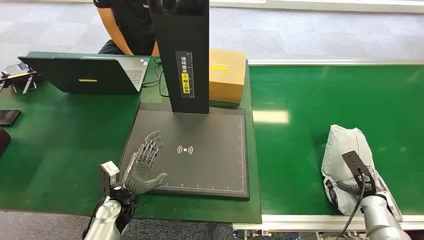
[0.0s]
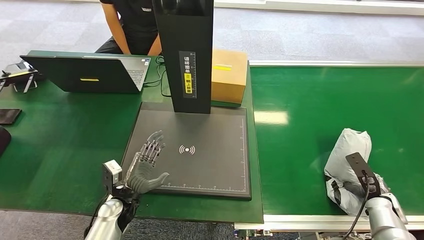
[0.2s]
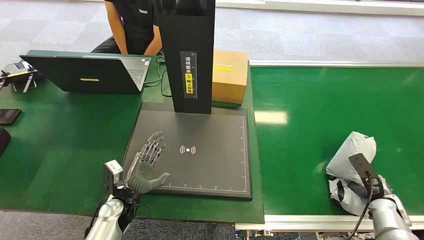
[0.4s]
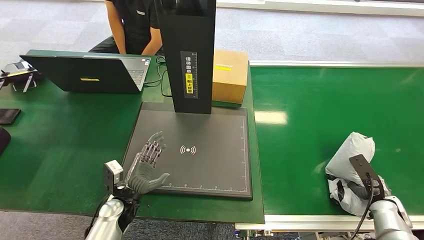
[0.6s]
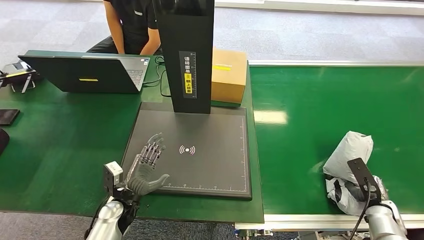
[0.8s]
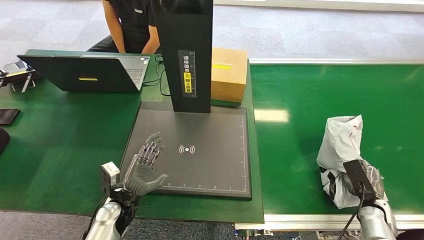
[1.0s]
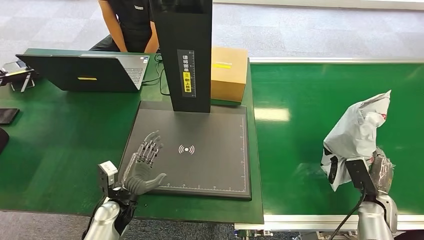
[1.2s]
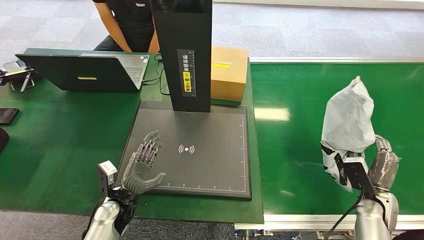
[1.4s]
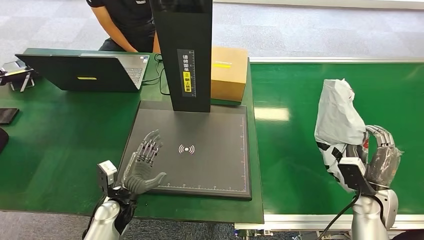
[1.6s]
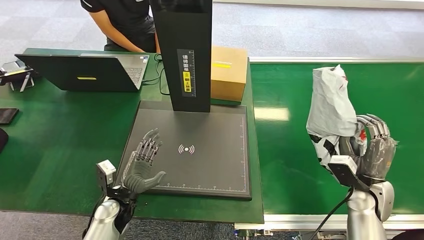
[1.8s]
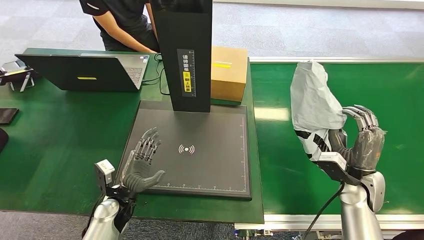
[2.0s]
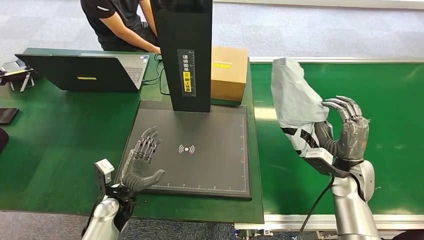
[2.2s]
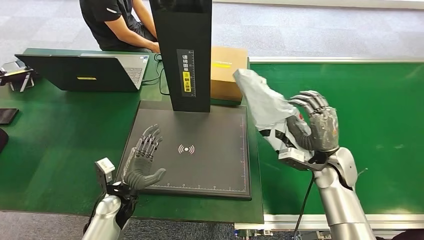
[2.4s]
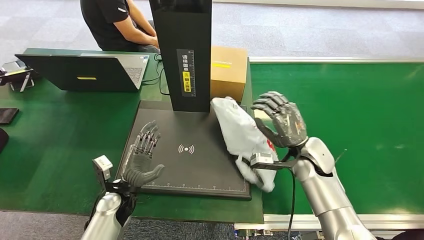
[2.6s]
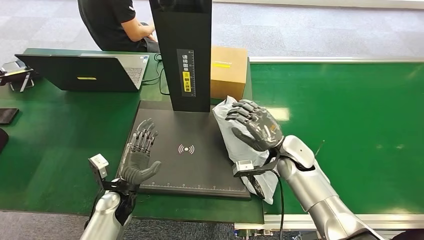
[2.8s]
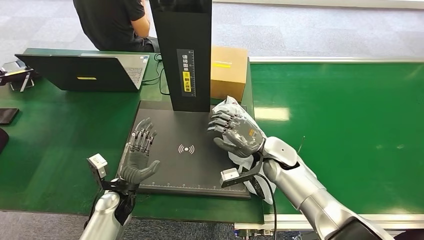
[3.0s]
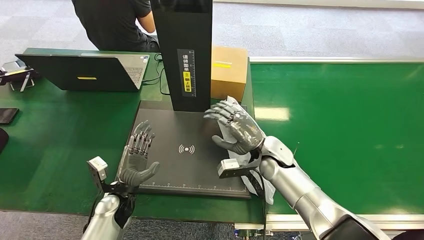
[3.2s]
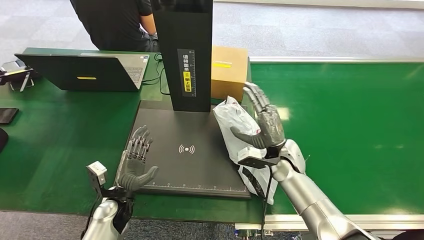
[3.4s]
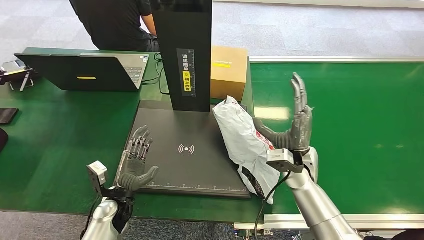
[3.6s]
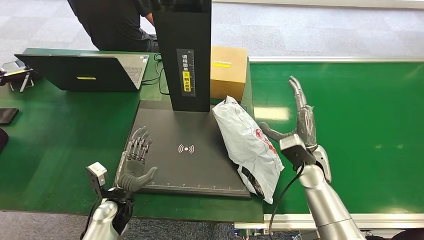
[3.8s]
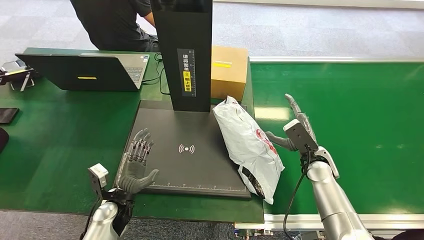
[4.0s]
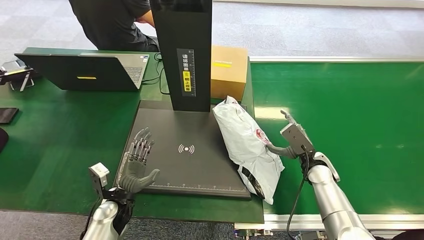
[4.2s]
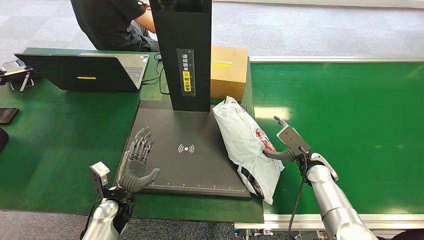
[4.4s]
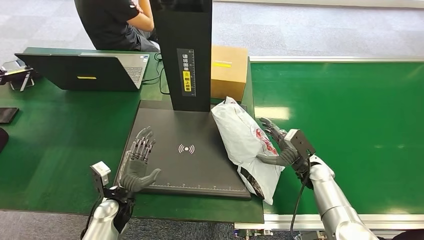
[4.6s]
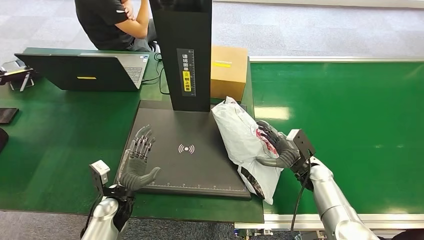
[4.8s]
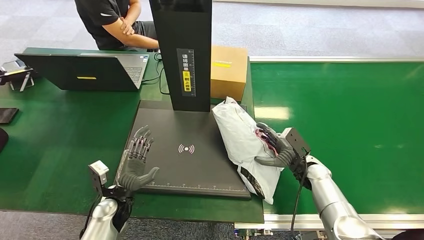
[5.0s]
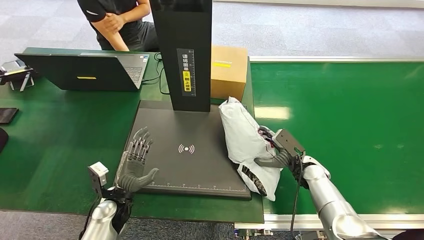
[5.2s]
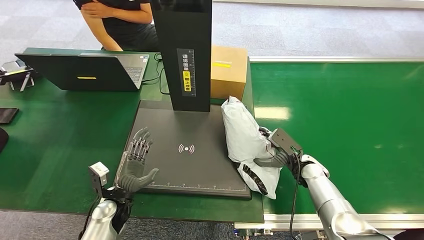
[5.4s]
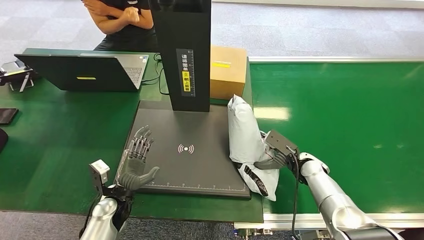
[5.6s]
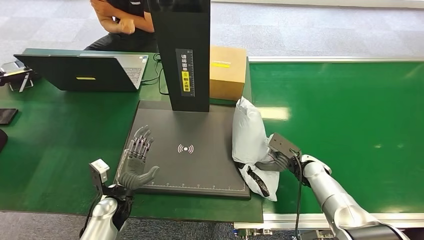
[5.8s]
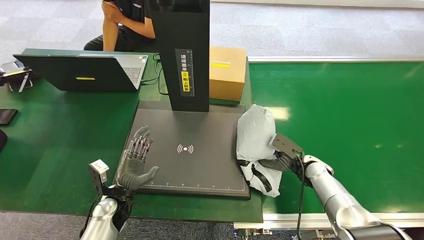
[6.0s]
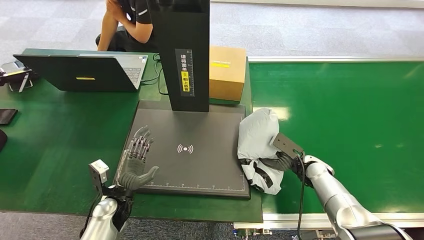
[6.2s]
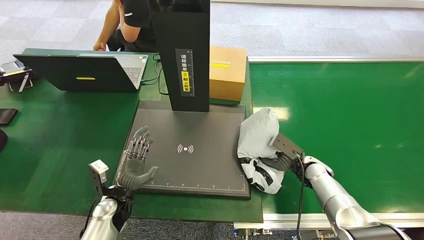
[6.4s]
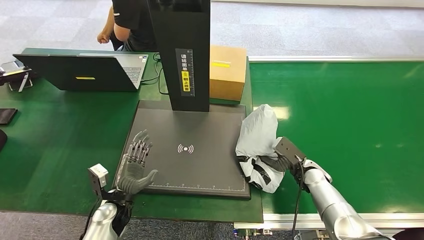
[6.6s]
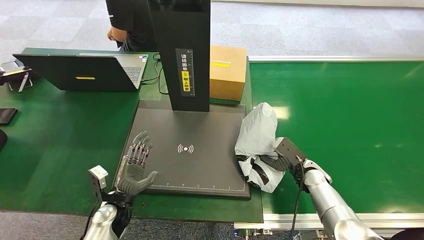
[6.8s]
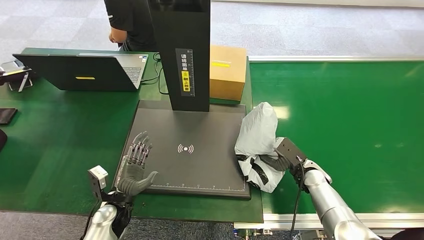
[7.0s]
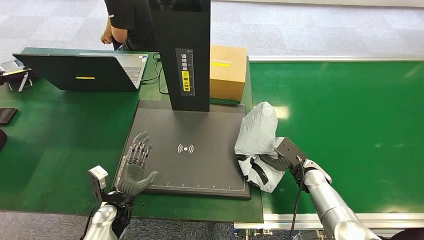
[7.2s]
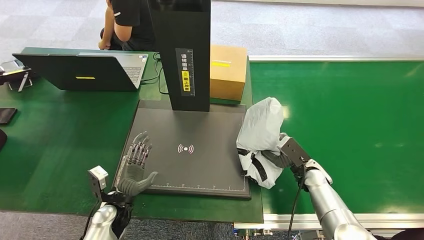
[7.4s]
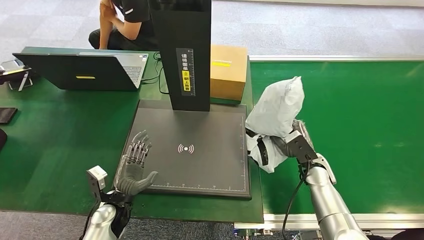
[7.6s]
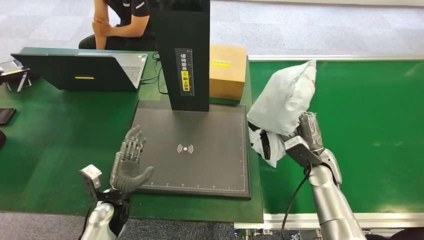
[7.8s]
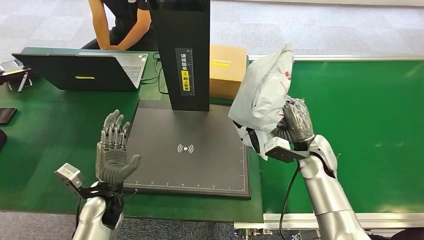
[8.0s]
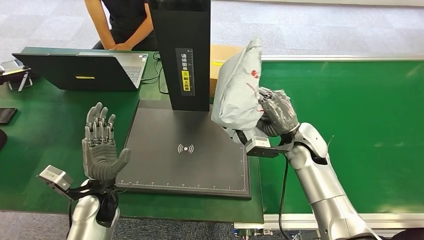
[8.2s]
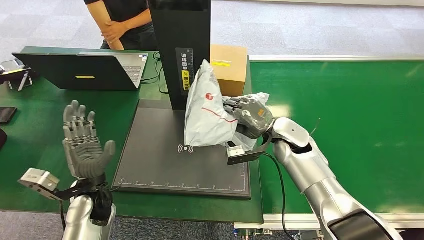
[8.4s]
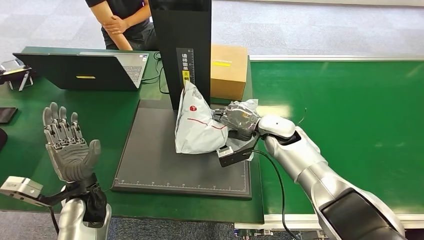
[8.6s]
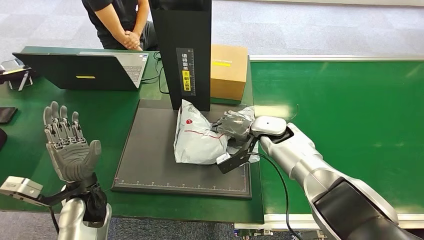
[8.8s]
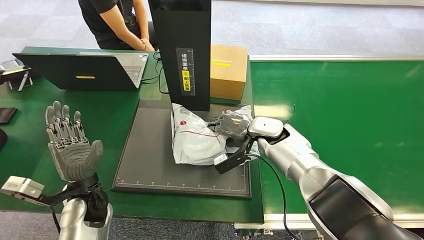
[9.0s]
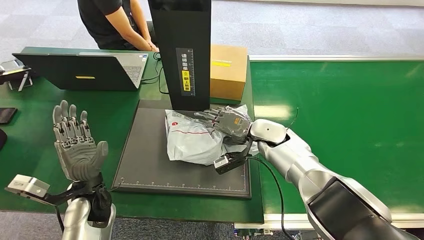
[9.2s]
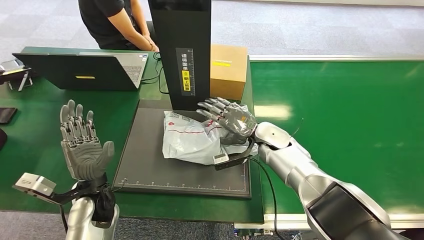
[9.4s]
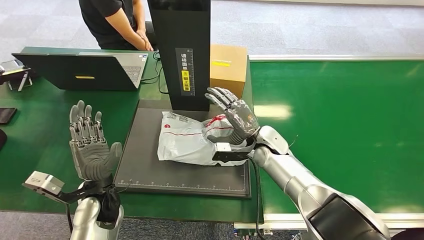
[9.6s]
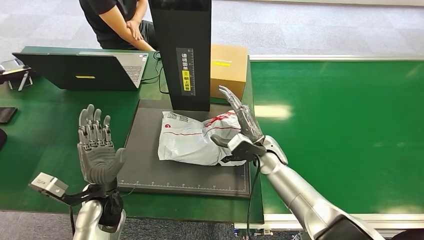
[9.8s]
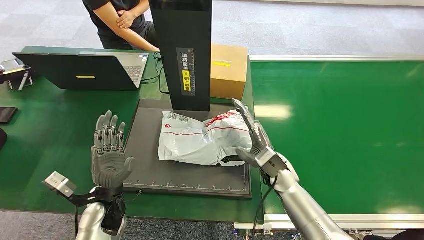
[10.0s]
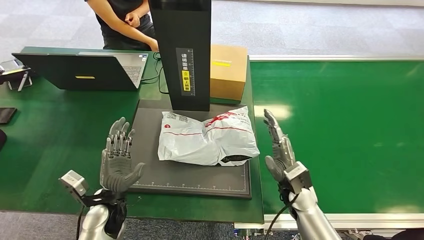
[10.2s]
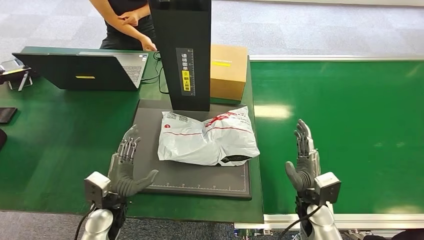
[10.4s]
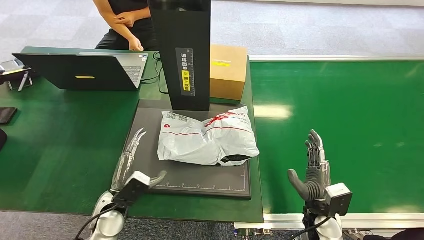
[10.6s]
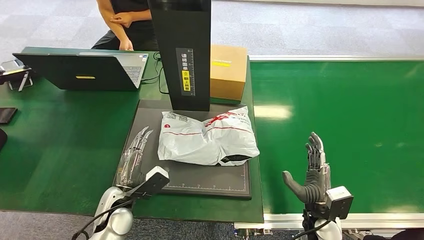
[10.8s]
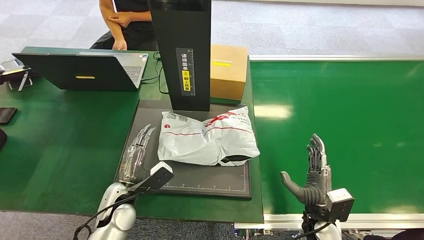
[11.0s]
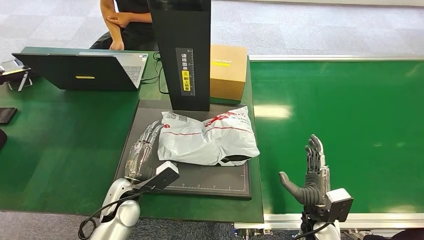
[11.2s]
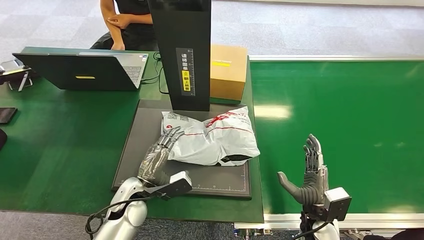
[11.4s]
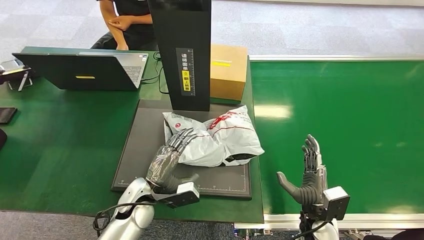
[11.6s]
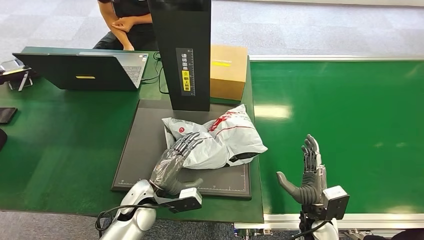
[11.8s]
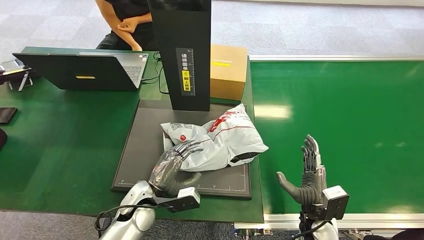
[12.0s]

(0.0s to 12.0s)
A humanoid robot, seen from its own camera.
Task of the whole recording: Weigh the package on the weighing device and place it in the left basket.
Step, 0.0s - 1.6s: Pick up the package from the conveyor belt.
Step, 4.2s - 8.0s: Pick up the package from the conveyor belt.
Step, 8.2s - 9.8s: Place the package onto the inbound machine.
3.0s - 4.4s: The right hand goes roughly 15 cm to the right and downward.
10.4s - 12.0s: The left hand moves to the right, about 10 cm.

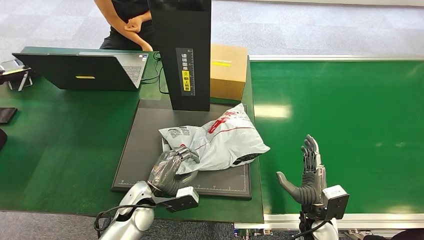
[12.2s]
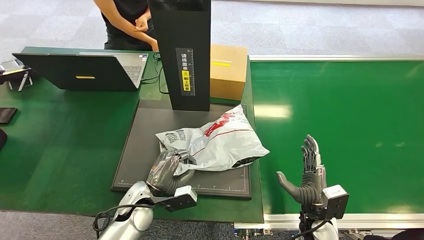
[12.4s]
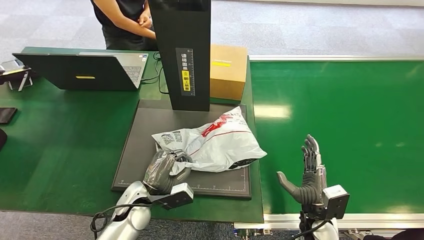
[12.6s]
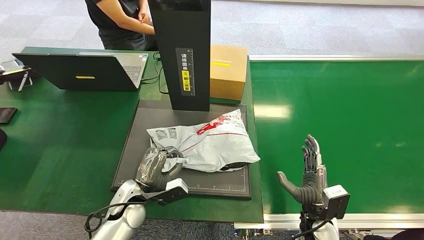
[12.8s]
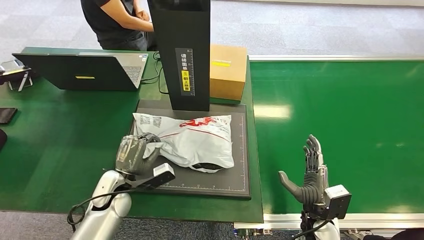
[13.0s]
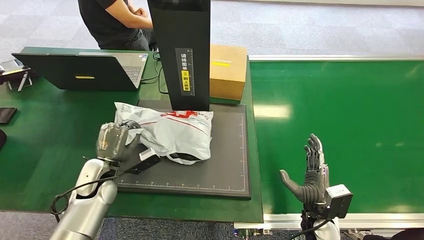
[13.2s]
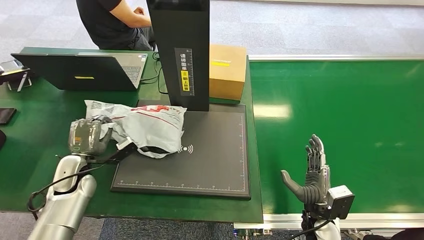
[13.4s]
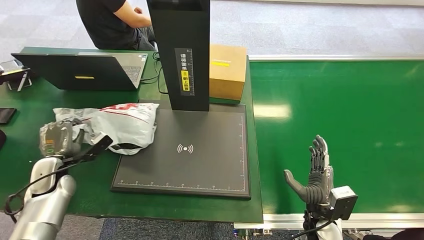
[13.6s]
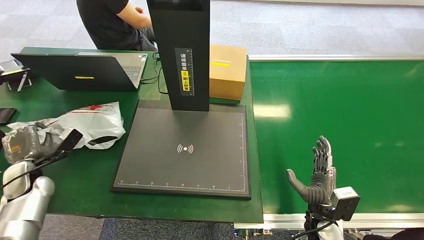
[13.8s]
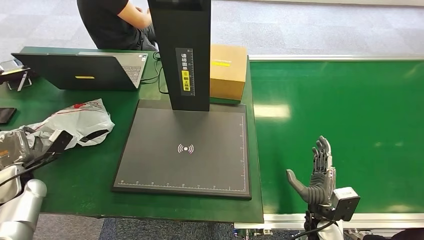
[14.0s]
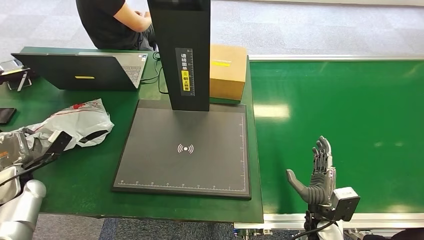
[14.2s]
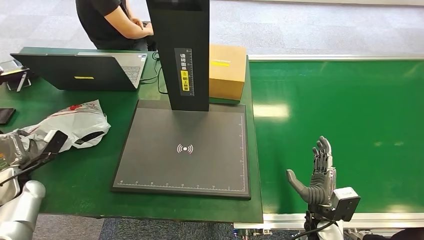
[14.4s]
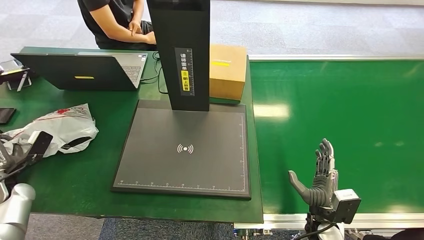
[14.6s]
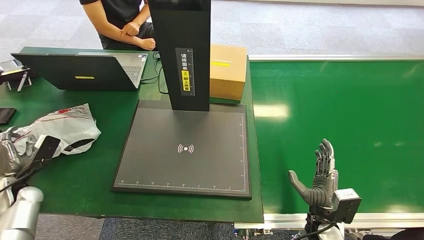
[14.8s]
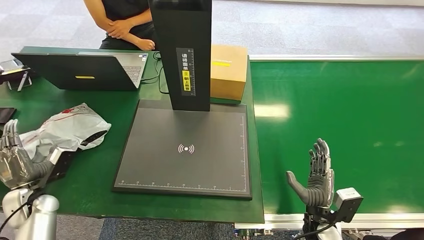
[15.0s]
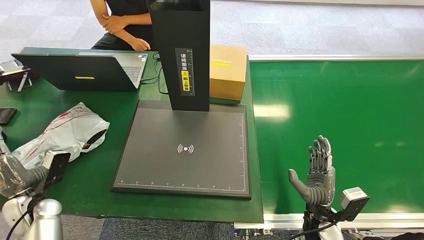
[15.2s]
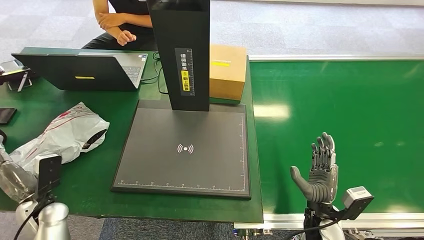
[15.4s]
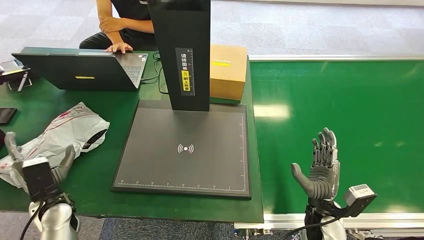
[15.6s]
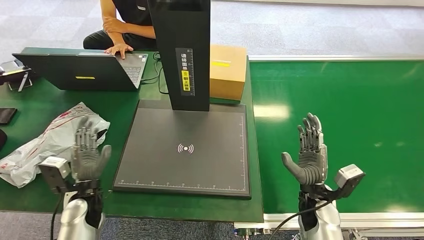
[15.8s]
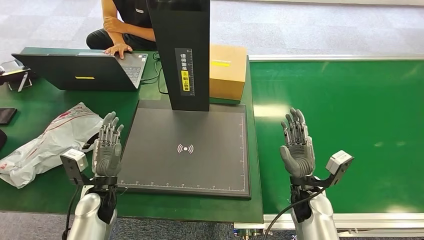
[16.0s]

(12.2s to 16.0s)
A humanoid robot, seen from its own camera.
Task of the whole recording: Weigh the package on the weighing device and place it in the left basket.
Step, 13.6s - 16.0s: Place the package into the parcel locker.
14.8s - 16.0s: The left hand shifts about 25 cm to the right, while the right hand heads forward and upward, covering about 10 cm.

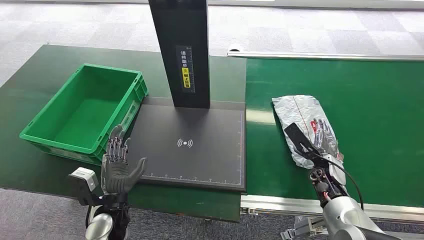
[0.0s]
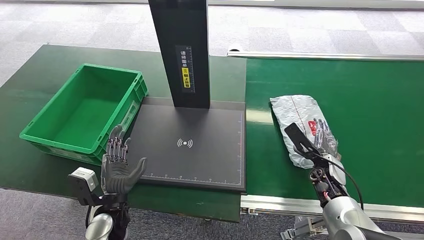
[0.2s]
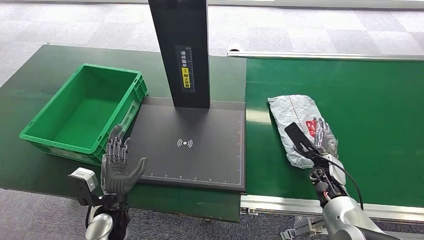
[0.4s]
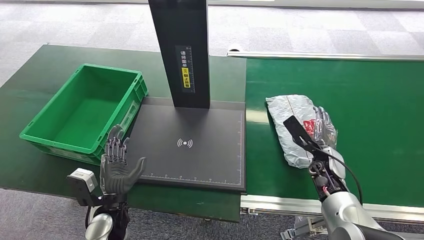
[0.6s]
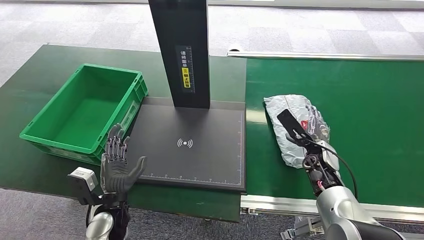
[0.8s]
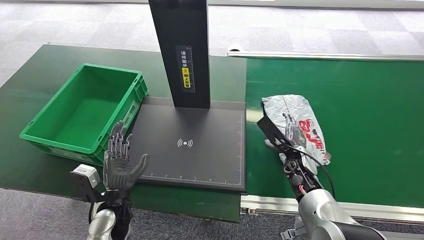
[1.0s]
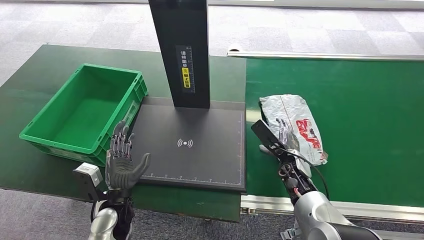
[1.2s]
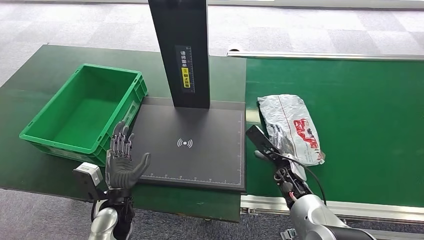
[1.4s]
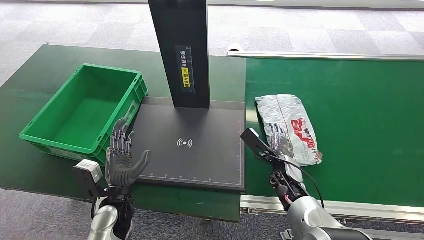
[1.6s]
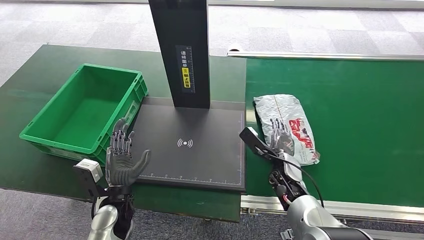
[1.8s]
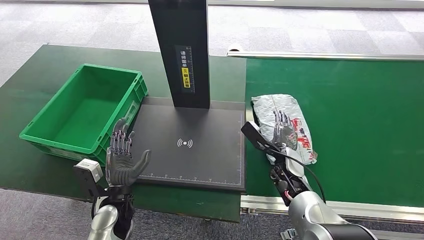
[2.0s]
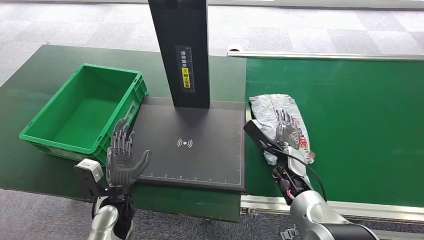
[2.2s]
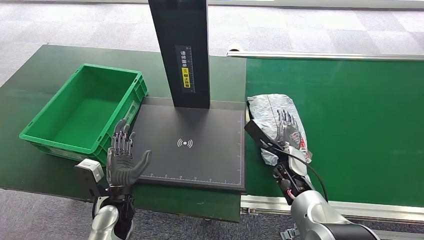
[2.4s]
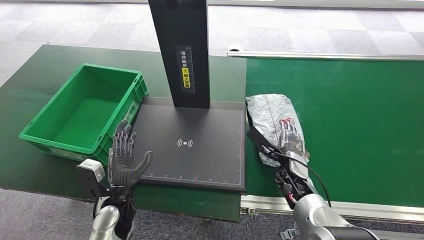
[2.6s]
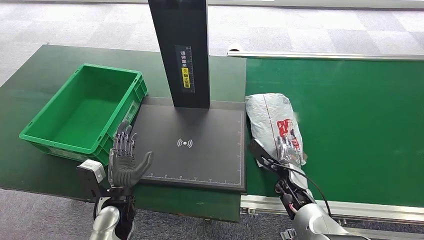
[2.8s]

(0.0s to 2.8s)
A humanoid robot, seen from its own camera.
Task of the whole recording: Weigh the package on the weighing device and place it in the left basket.
1.4s - 2.8s: The hands make only small movements.
